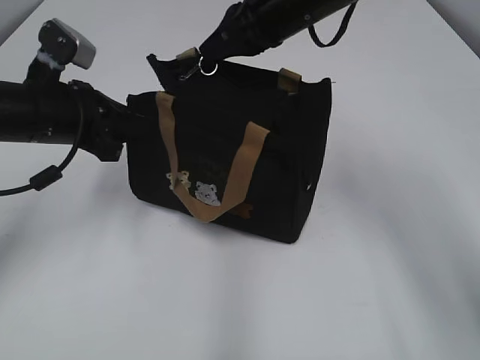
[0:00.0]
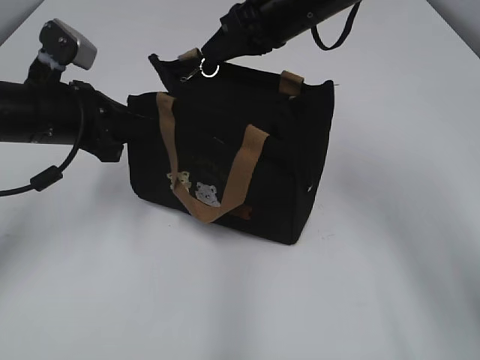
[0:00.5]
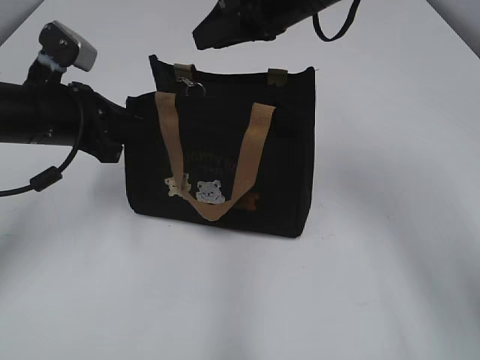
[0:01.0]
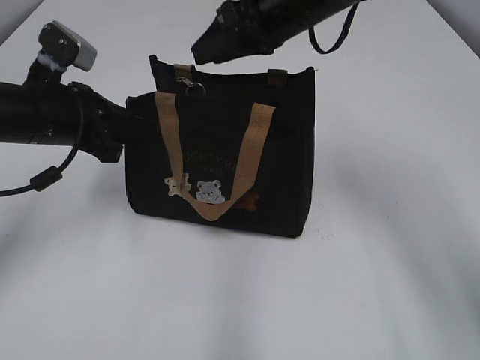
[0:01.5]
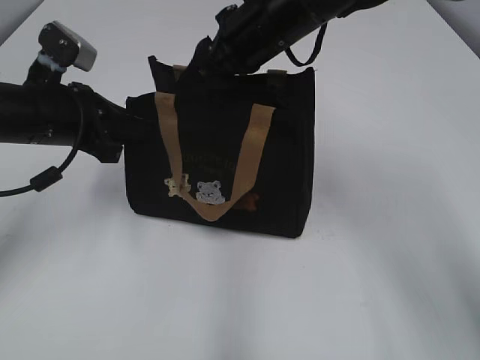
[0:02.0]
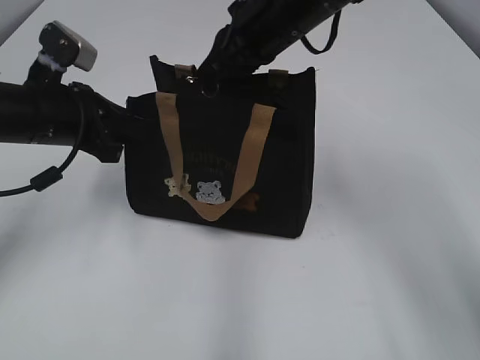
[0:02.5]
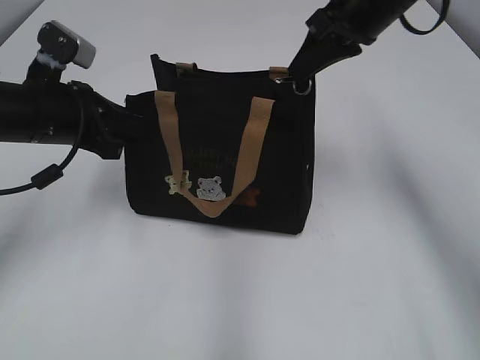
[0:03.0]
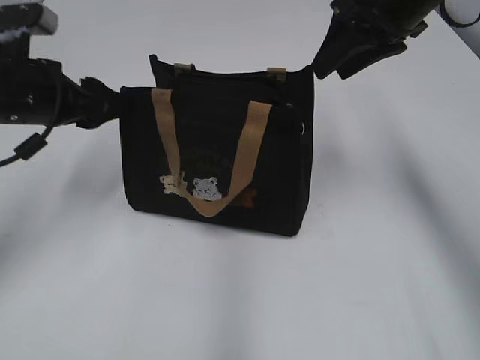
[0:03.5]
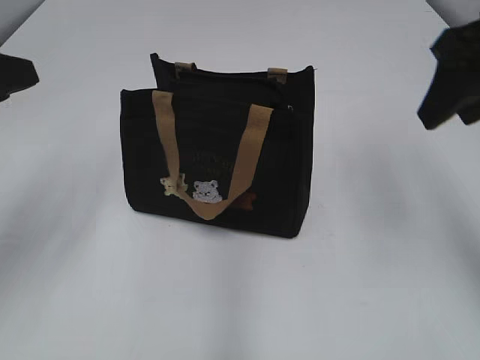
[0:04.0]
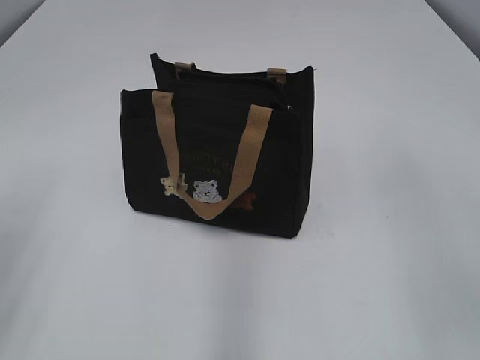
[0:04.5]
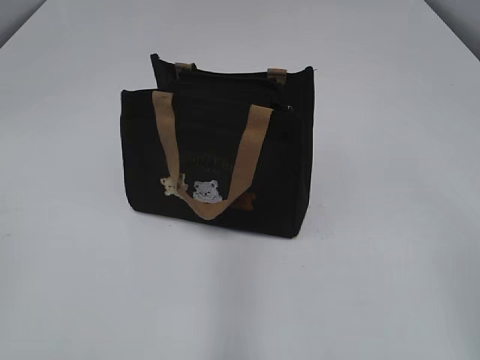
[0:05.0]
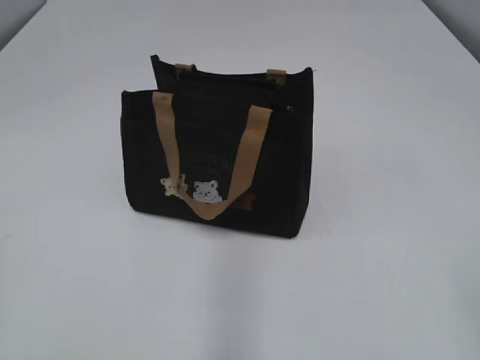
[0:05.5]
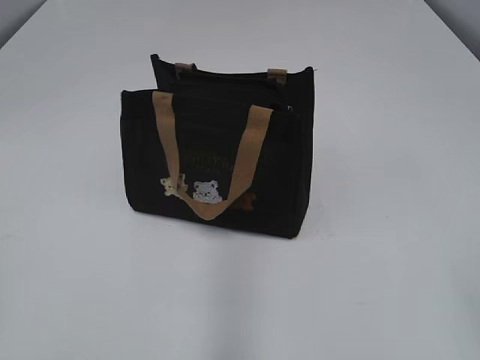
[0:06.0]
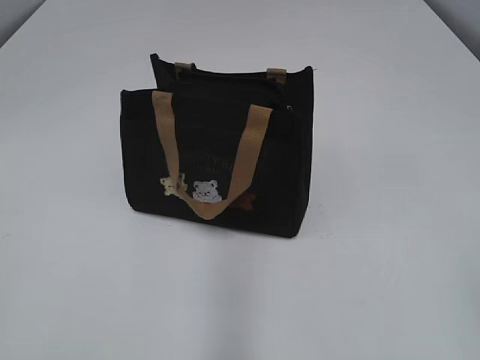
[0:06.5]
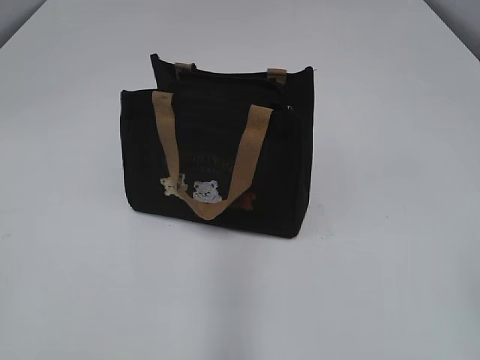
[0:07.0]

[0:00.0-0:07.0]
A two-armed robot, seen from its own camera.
Step, 0:00.0 to 0:03.0: Pull open the zipper with your right hand.
0:00.0 to 0:02.0: The right gripper opens its fingers.
0:02.0 to 0:03.5: The left gripper opens its fingers; the right gripper goes about 15 cm to the right and upward, and closes, then reopens.
0:03.5 to 0:05.0: Both grippers move backward, about 30 cm.
